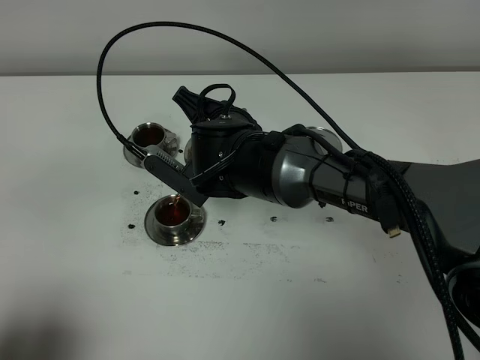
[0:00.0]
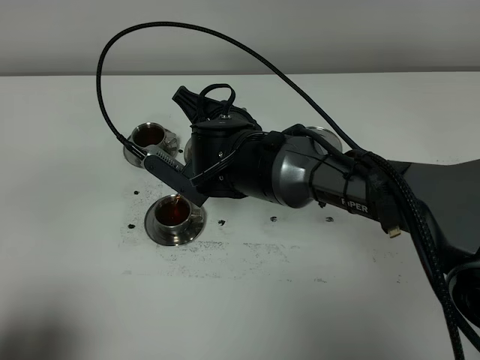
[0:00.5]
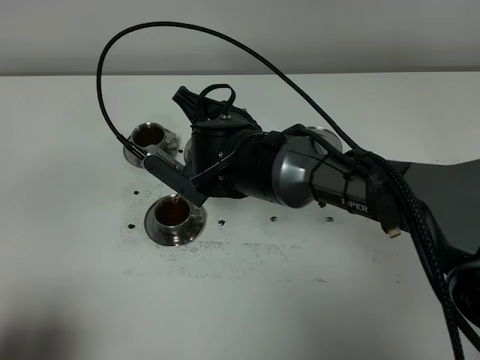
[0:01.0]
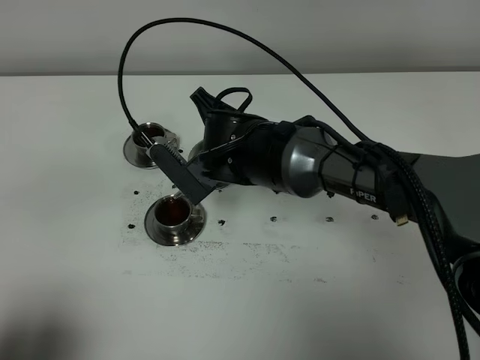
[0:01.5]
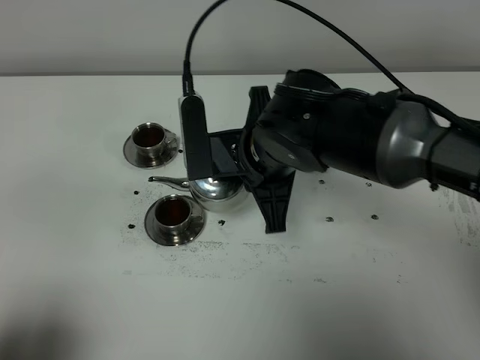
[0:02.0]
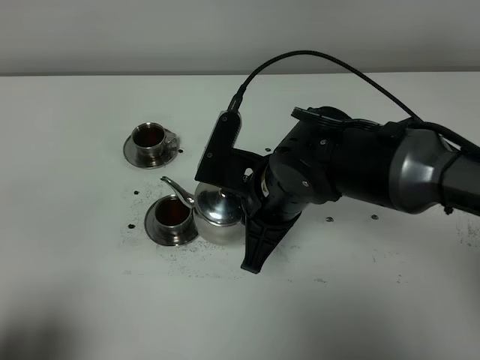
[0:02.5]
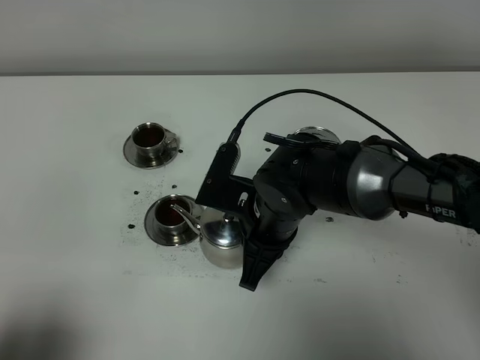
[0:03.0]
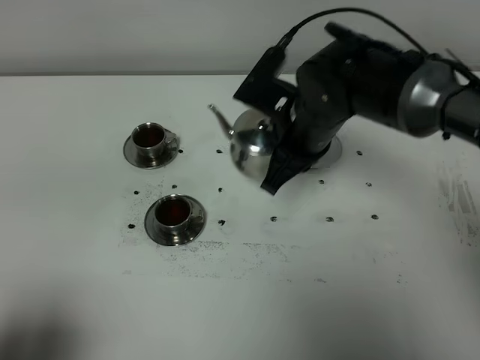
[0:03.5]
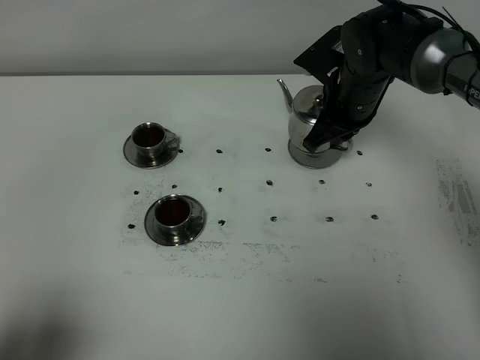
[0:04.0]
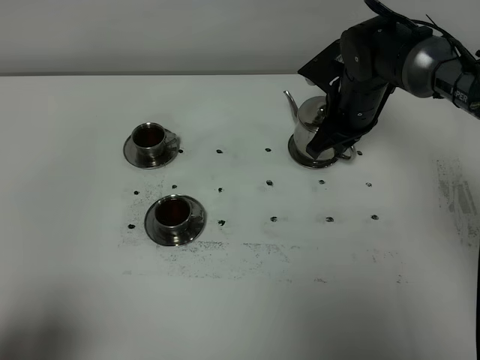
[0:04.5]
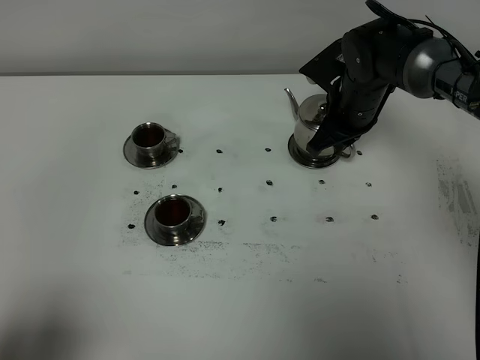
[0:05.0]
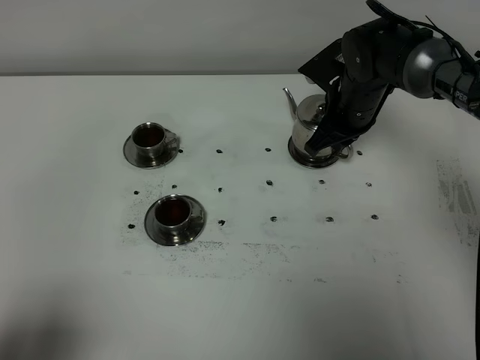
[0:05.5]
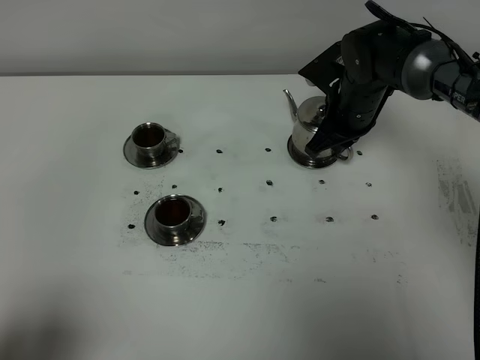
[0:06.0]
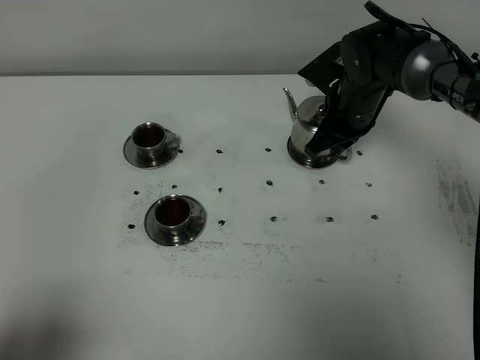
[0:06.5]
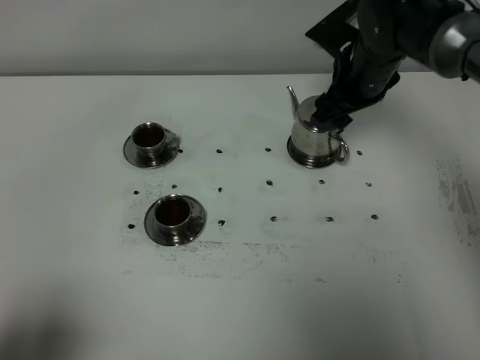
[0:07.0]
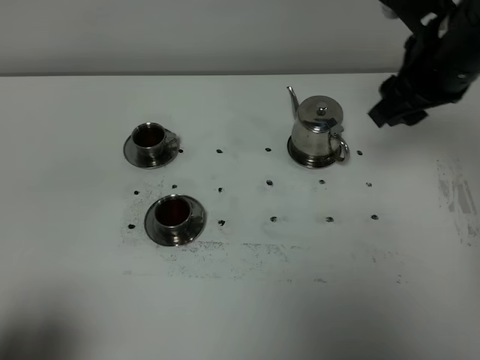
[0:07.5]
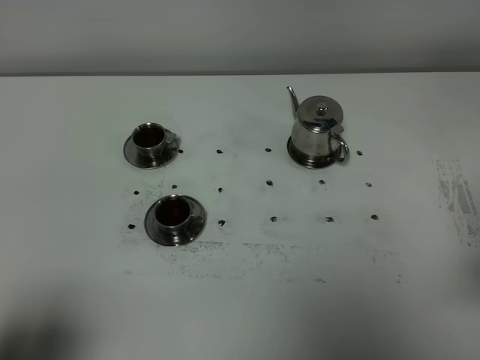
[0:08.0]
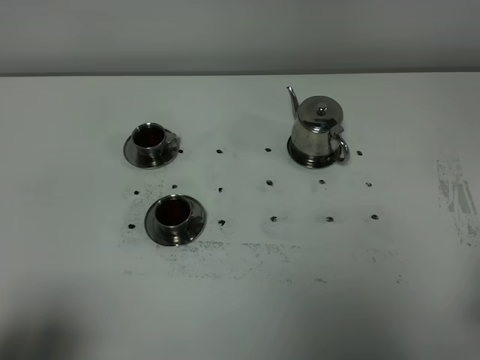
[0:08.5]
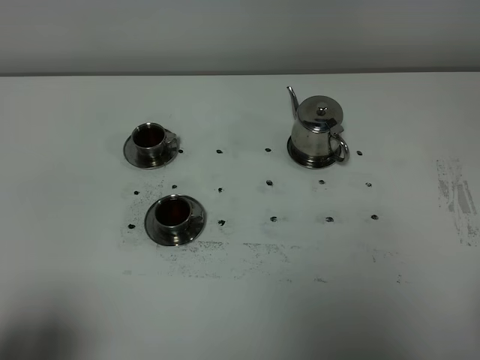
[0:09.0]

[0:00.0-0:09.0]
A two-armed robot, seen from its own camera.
Task of the whole recording: grasp the stainless steel teapot and pour the tea into the two stainless steel teacups one by one, put the stainless steel teapot back in its original place.
0:00.0 to 0:02.0: The right gripper is displaced backward and to the right by about 5 cm.
0:02.0 to 0:04.5: The right gripper travels forward, to the right and downward by about 20 cm.
0:04.5 to 0:07.0: The right gripper heads upward, covering about 5 cm, and opens its fingers.
0:07.0 to 0:09.0: The right gripper heads backward, covering roughly 40 cm, and closes.

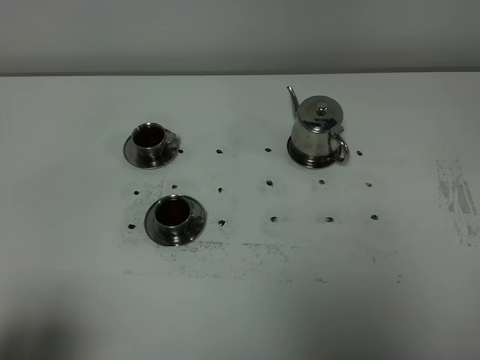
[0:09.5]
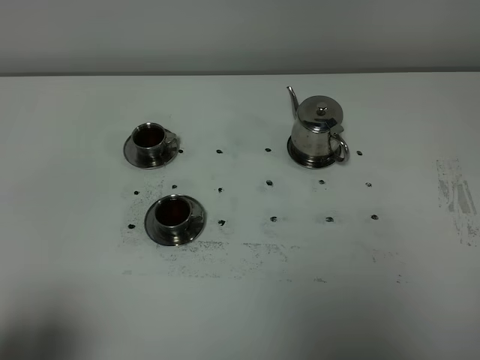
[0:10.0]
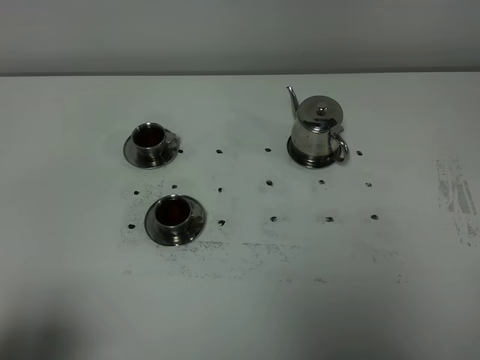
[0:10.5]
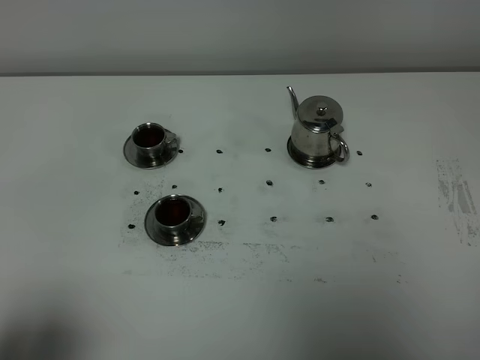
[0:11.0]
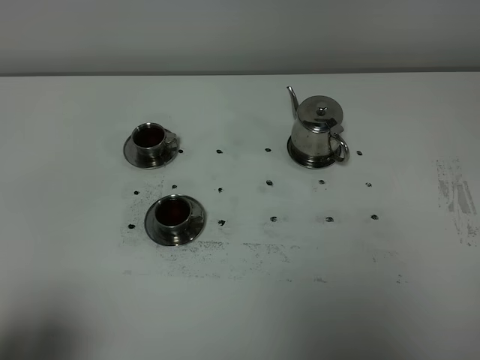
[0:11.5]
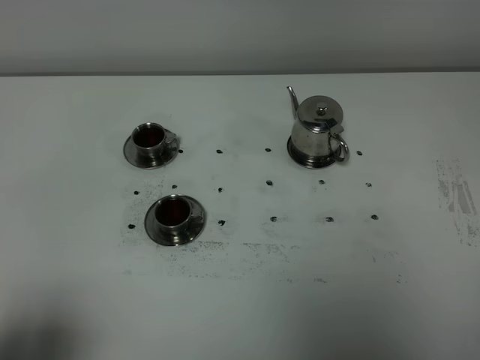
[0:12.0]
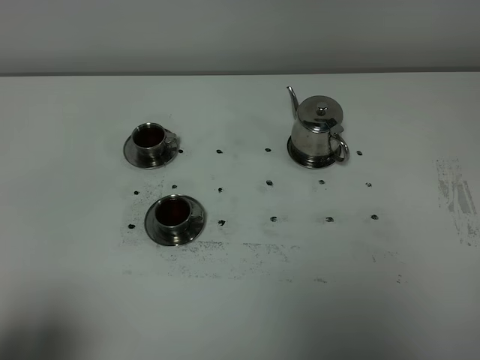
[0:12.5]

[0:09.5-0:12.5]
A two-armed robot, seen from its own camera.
Task of the whole recording: grasp the stainless steel teapot and pour the tea into the two stainless steel teacups one by one, put the stainless steel teapot back in its original place.
0:09.5 to 0:12.5: The two grippers keep their place.

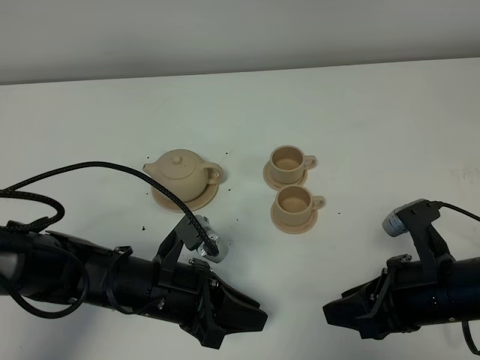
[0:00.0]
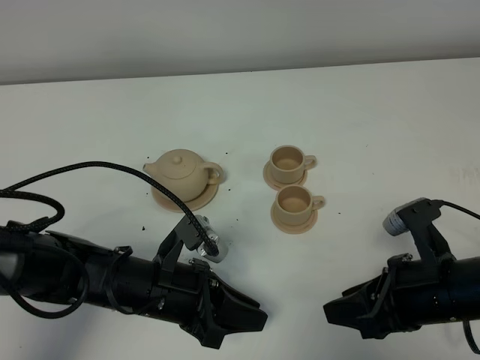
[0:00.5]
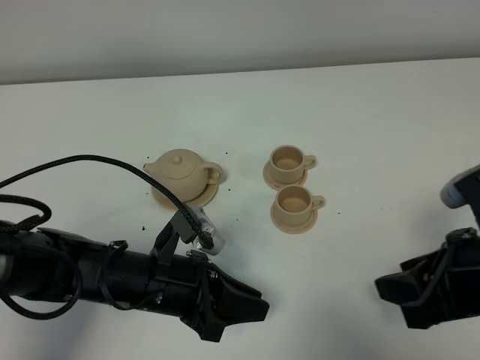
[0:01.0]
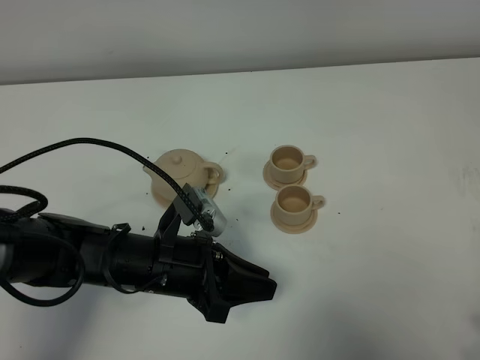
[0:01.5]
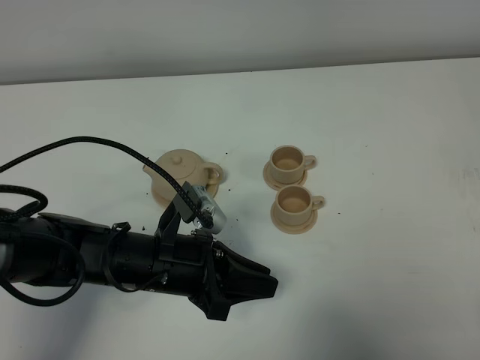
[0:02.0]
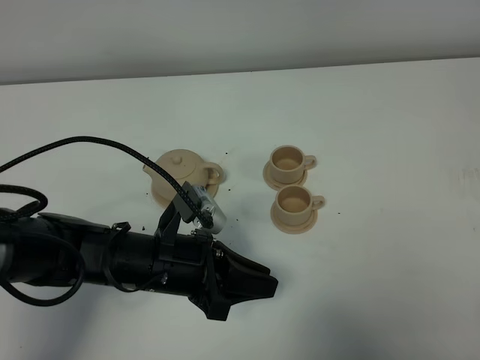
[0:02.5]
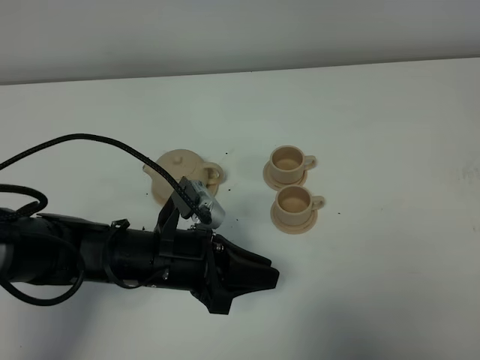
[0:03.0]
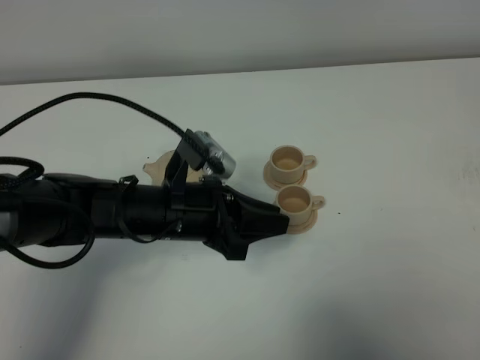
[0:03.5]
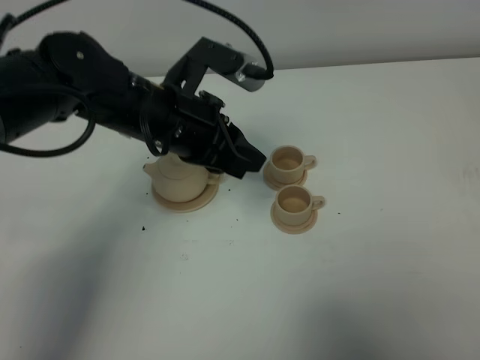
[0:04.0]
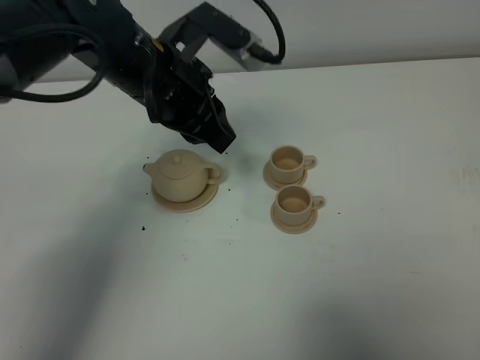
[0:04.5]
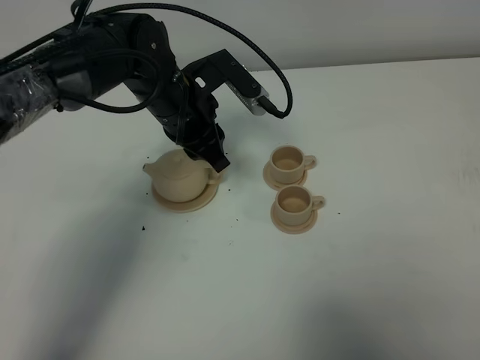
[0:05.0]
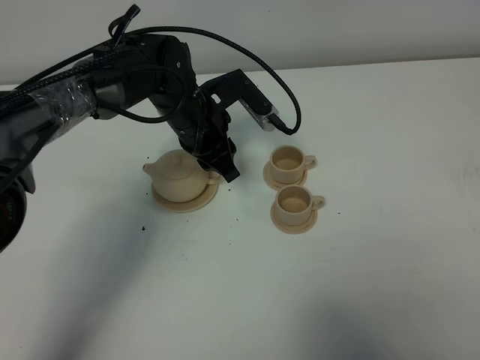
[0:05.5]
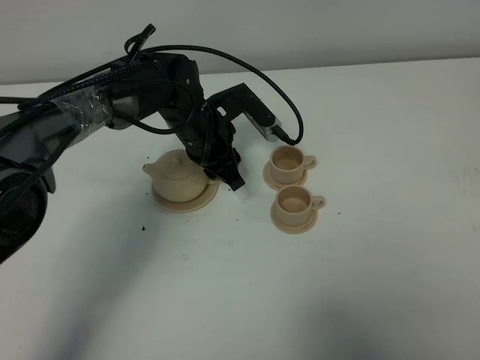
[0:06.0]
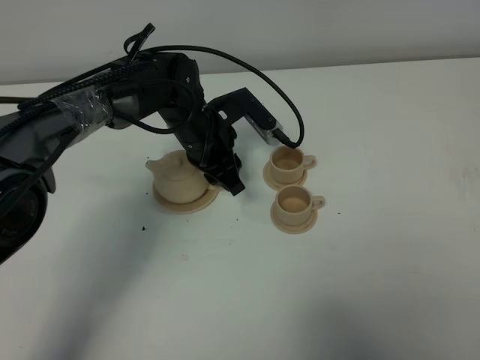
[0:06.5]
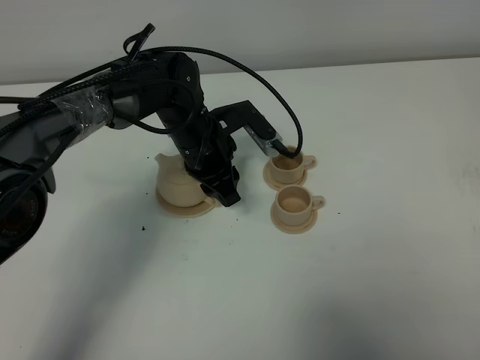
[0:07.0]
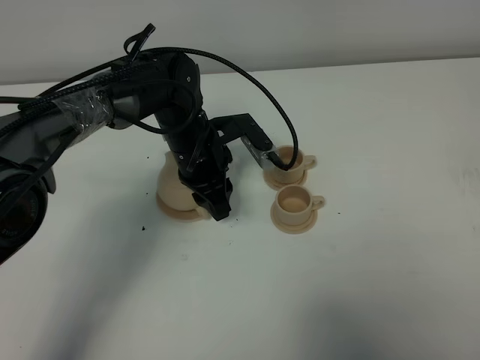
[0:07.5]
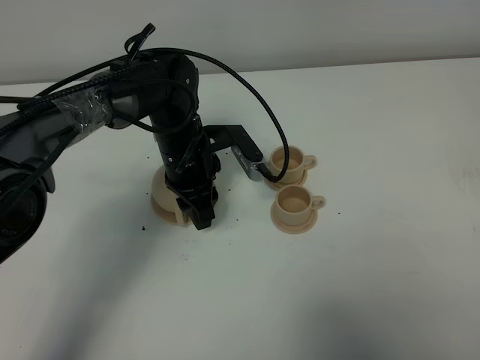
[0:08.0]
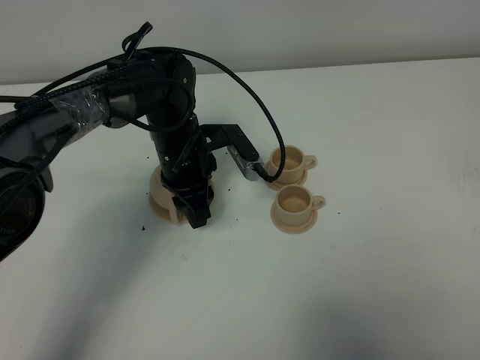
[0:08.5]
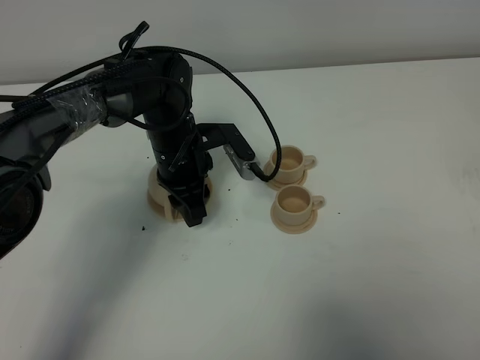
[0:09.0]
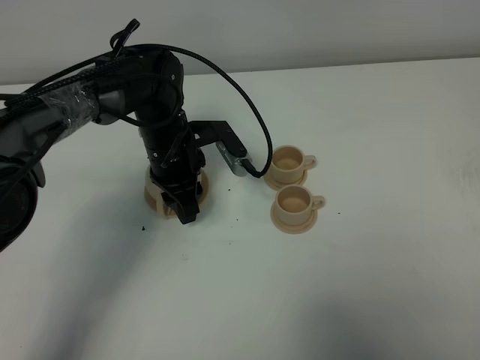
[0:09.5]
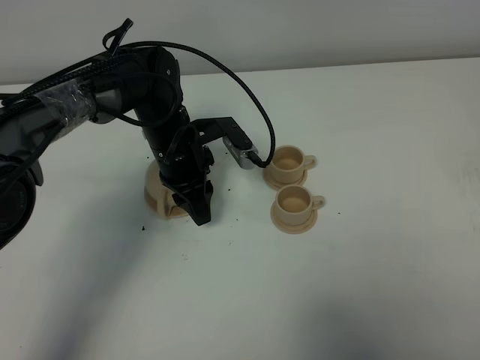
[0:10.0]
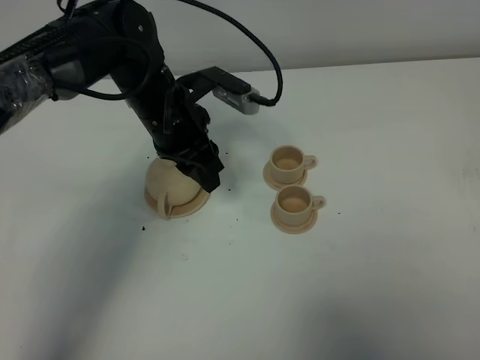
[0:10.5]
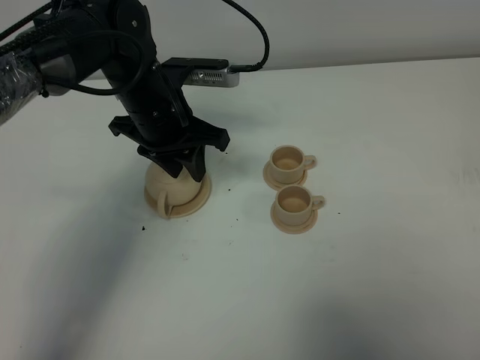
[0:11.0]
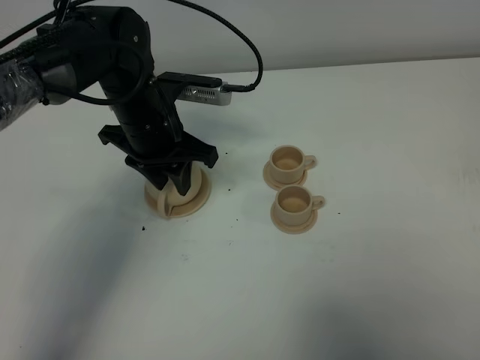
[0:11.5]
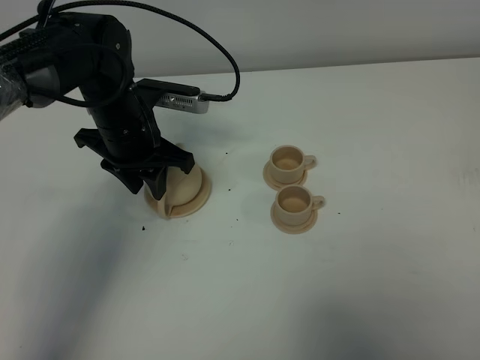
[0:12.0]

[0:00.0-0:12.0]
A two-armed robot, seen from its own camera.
Task of the whole recording: grasp the brown teapot and pour the tea into the two brown teacups one by one, put the brown teapot back in its original place.
0:00.0 to 0:02.0: The right gripper shifts some 25 cm backward, upward and to the right.
0:02.0 to 0:04.0: The left gripper travels upward and forward by roughly 15 cm.
0:04.0 to 0:06.0: The left gripper moves downward and forward, some 15 cm, and opens up.
0:08.0 to 0:10.0: The grippers stay close to where they were, moving slightly.
0:10.0 to 0:12.0: The left gripper goes roughly 5 cm upward.

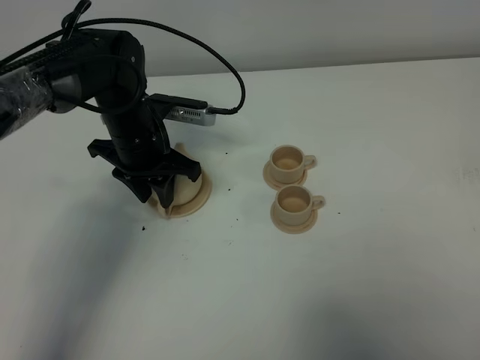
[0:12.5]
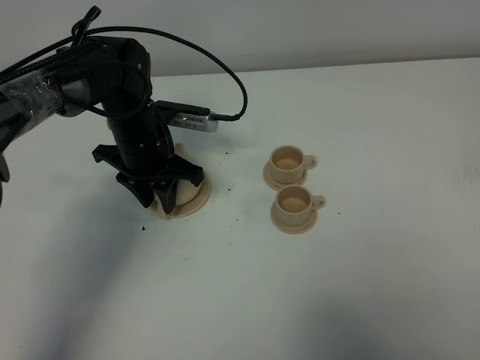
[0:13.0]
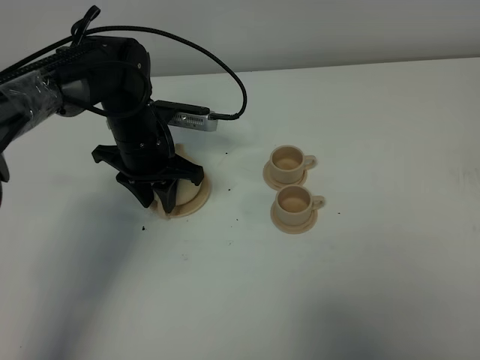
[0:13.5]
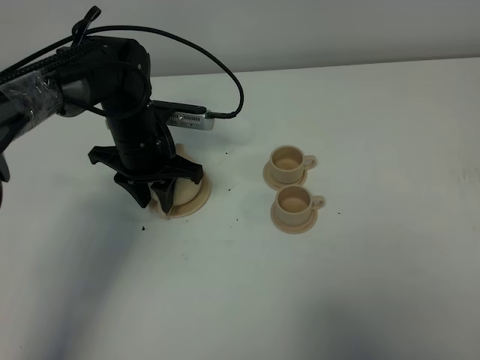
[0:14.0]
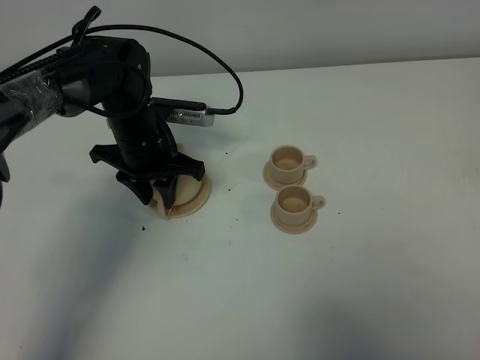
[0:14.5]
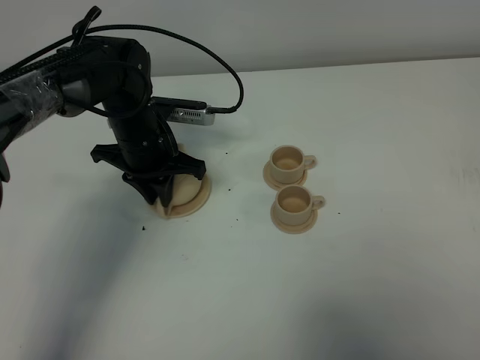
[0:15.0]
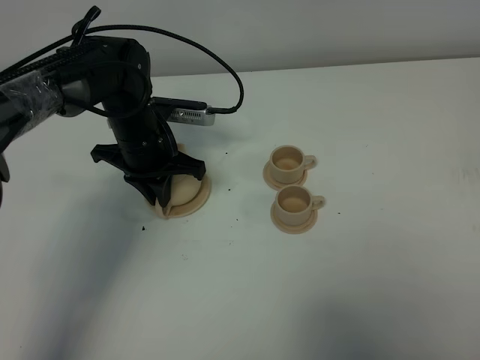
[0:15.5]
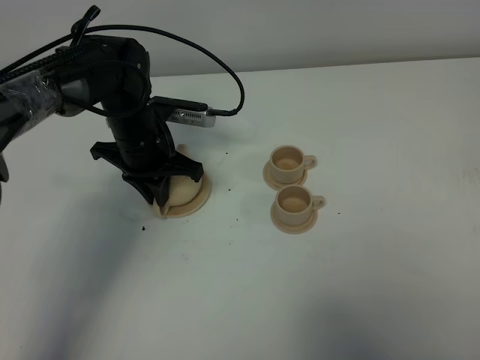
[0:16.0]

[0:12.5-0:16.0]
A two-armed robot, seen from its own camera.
Task of the whole recording: grasp the brown teapot and pour the tea into the two brown teacups one by one, put the brown teapot back in its original place.
0:12.5 to 0:14.5: The grippers stay close to where they were, moving slightly.
0:14.5 to 0:16.0: The left gripper closes its fingers.
